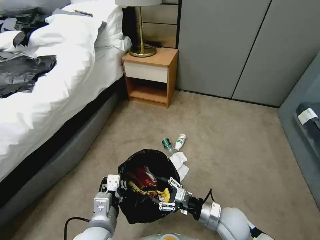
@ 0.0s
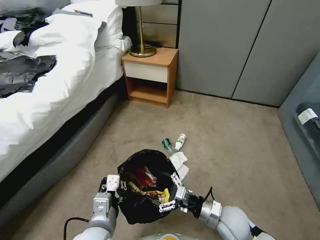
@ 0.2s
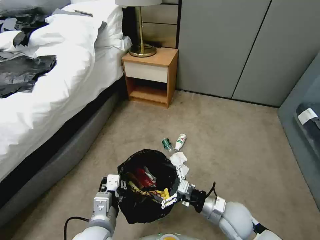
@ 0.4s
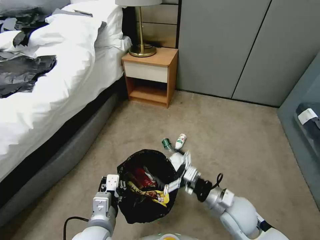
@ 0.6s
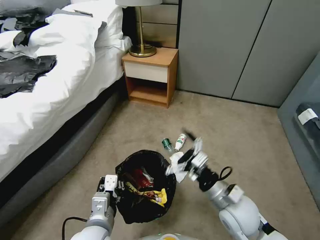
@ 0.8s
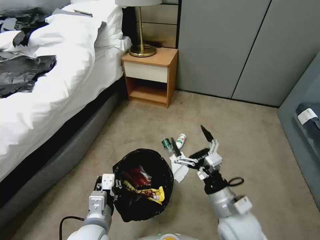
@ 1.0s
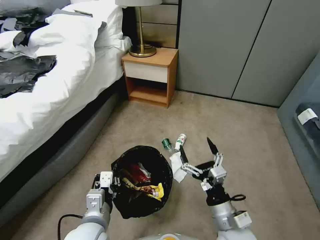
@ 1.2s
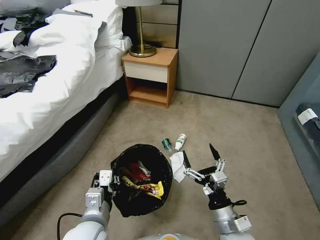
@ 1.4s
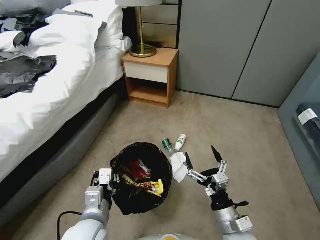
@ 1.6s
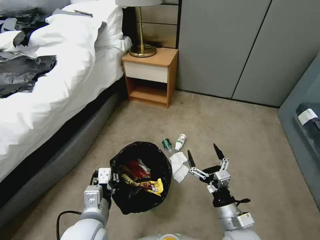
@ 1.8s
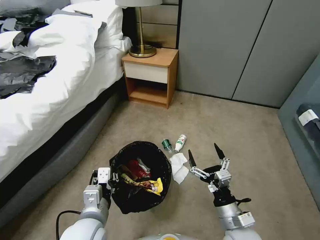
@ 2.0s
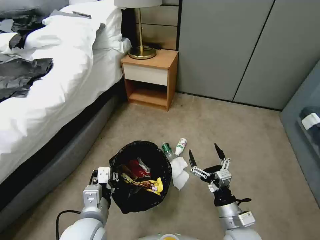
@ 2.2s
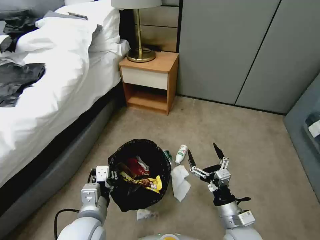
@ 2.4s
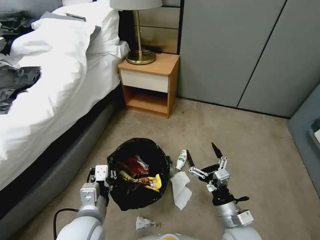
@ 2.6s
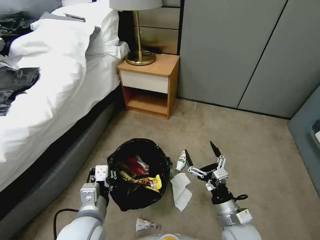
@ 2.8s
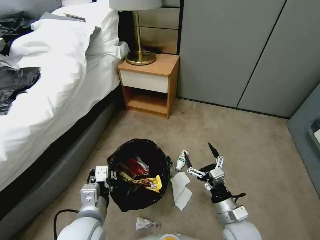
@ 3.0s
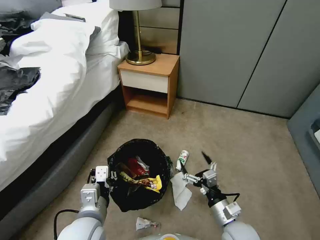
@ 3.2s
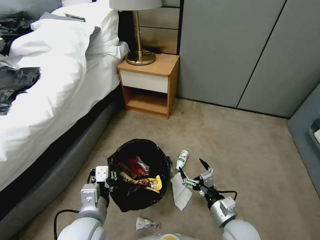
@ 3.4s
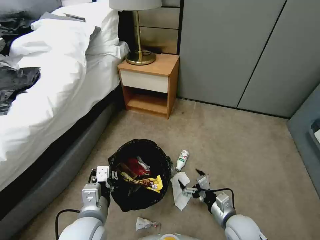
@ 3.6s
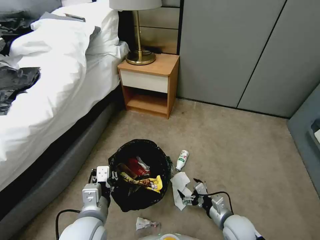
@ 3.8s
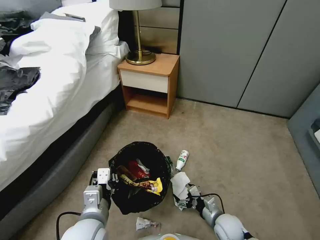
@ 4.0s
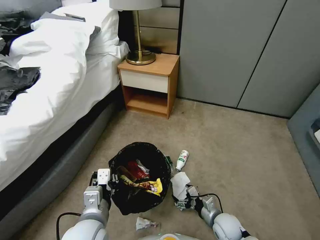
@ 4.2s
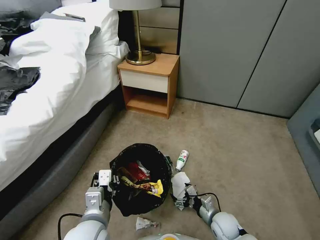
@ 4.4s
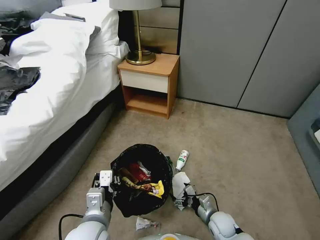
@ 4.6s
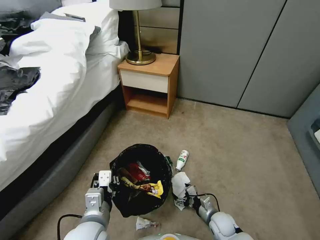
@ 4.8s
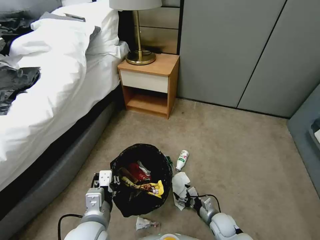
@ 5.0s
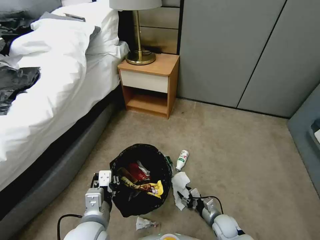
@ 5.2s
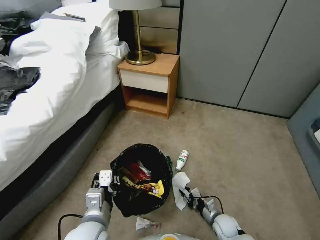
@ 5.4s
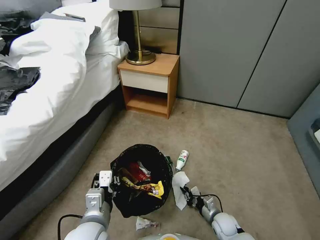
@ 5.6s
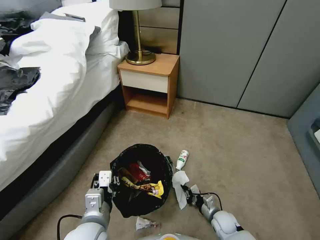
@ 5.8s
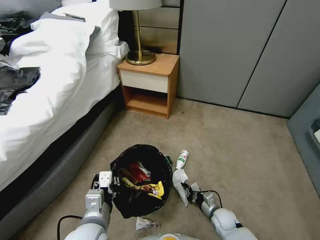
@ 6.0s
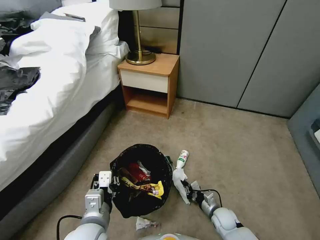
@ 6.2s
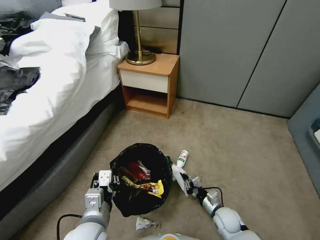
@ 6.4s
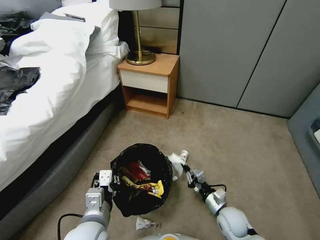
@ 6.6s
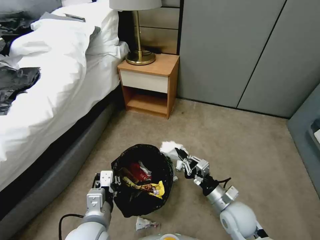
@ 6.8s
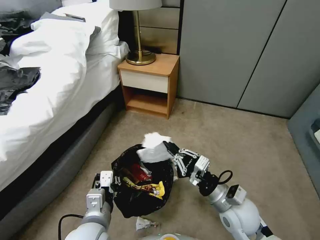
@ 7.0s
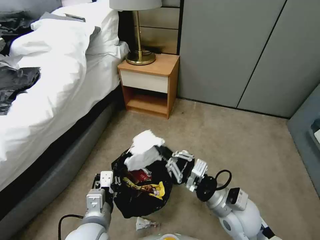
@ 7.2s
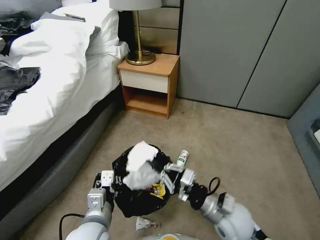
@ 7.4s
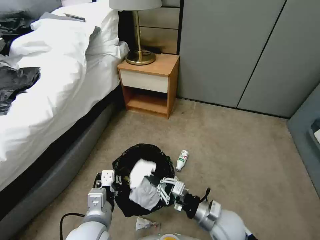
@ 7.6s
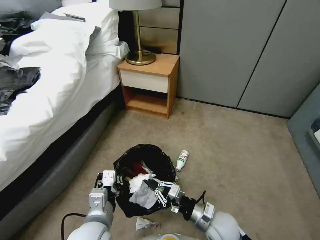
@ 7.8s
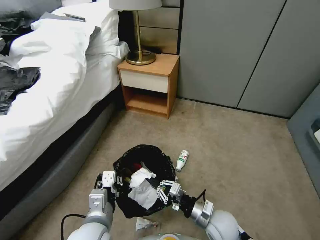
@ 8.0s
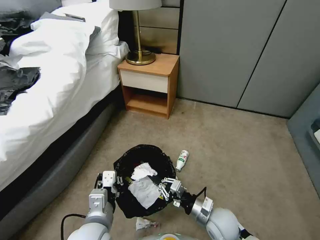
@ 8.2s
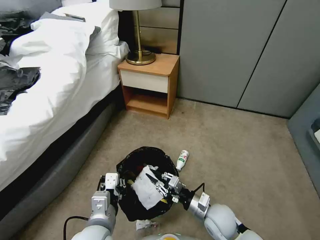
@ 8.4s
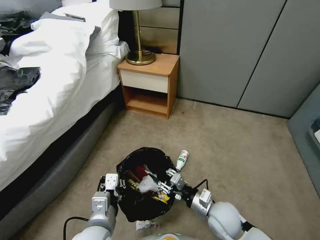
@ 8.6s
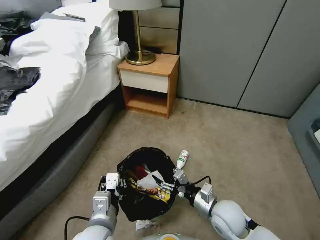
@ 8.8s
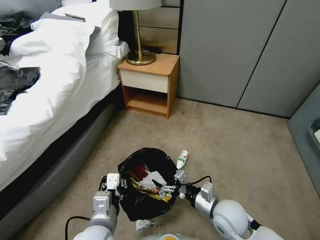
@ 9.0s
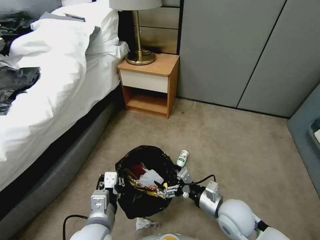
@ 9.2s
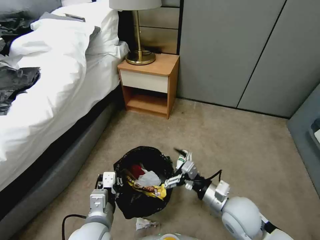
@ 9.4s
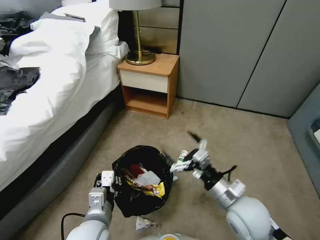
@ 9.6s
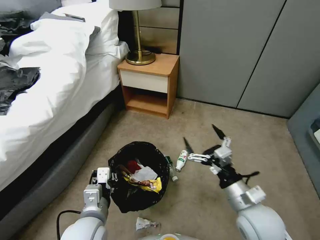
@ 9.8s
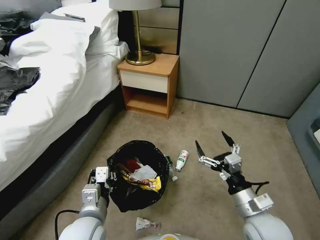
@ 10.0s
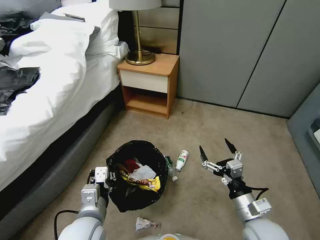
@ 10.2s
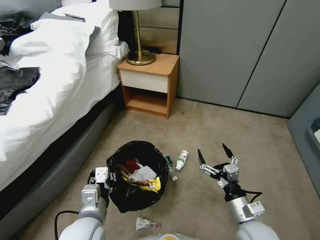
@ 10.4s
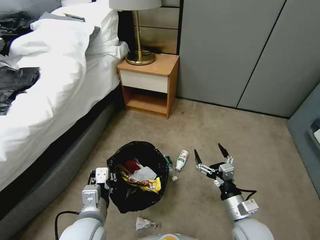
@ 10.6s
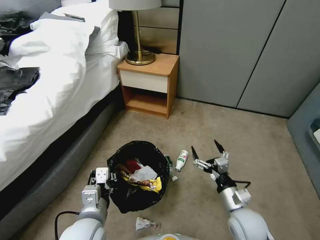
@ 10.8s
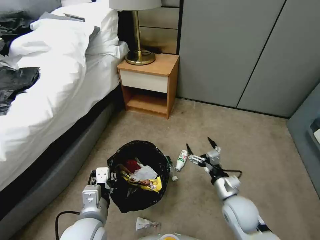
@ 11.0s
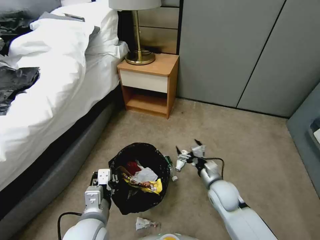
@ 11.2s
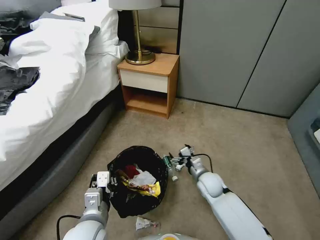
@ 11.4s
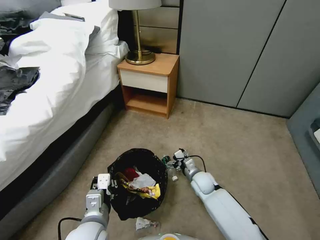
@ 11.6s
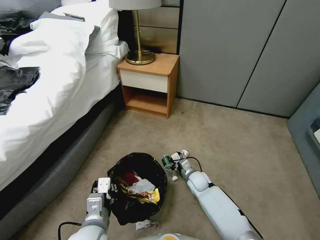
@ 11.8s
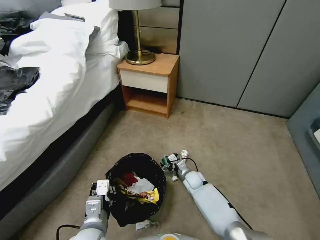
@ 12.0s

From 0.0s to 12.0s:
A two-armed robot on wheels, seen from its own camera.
Task of the whole recording: Pick up the trash bin, then pick up the garbage from the floor and place it into the trash bin.
From 0.0s to 1.6s: The right gripper shifts approximately 5 cm backward.
From 3.0s to 4.4s: The right gripper heads downward, covering approximately 15 cm.
From 4.4s to 6.0s: The right gripper travels downward by approximately 5 cm, and closes its fingers.
From 6.0s to 7.6s: The right gripper is displaced upward by approximately 20 cm.
From 7.6s to 9.0s: The right gripper opens.
From 9.0s to 10.4s: The right gripper travels to the right and backward by about 10 cm, and travels upward and back again, about 10 cm each way.
From 10.4s to 12.0s: The right gripper moves forward, downward and to the left, approximately 30 cm.

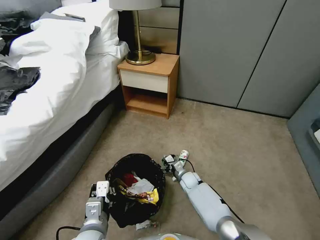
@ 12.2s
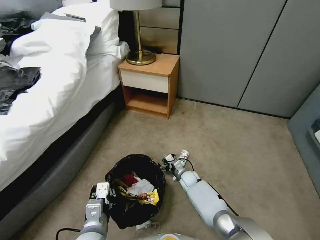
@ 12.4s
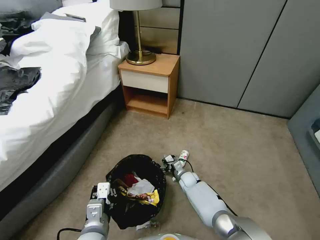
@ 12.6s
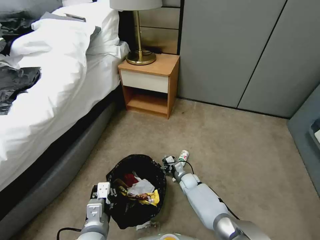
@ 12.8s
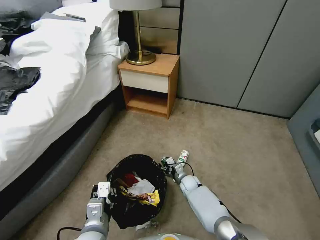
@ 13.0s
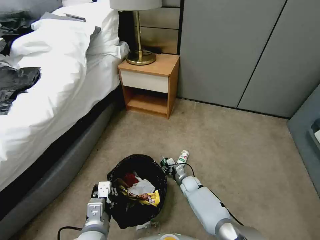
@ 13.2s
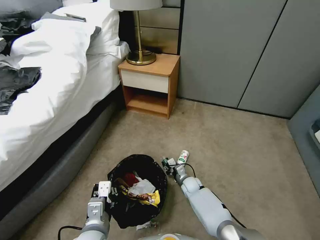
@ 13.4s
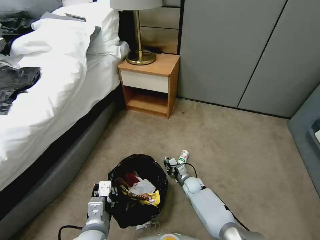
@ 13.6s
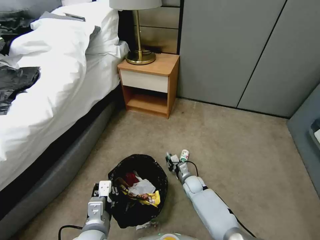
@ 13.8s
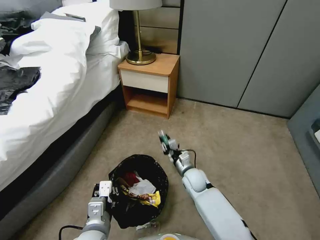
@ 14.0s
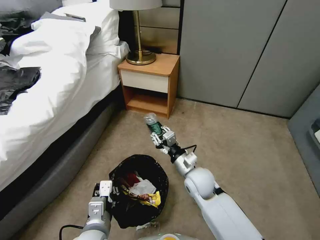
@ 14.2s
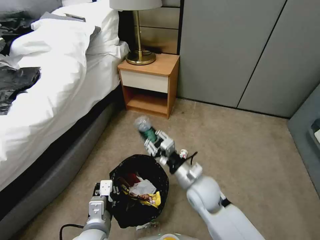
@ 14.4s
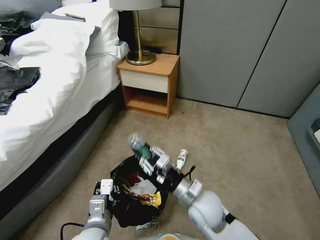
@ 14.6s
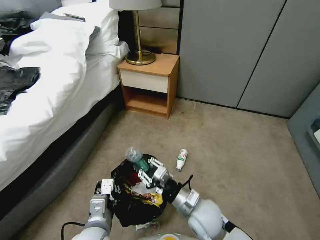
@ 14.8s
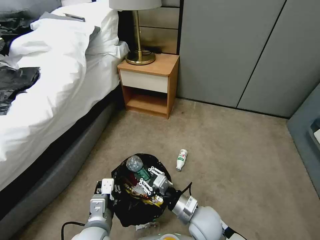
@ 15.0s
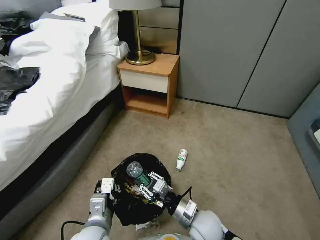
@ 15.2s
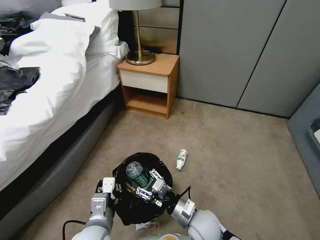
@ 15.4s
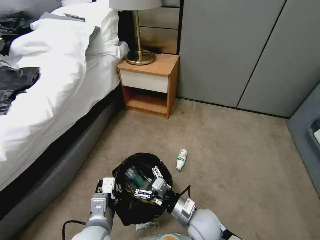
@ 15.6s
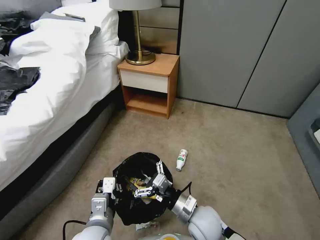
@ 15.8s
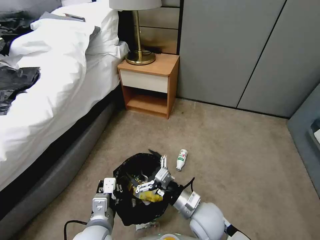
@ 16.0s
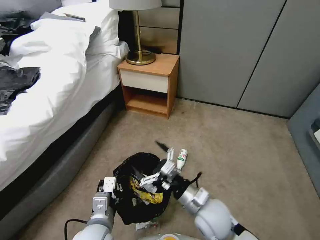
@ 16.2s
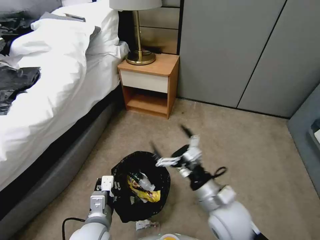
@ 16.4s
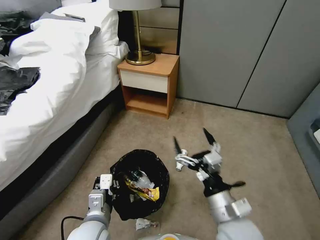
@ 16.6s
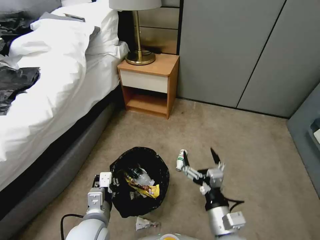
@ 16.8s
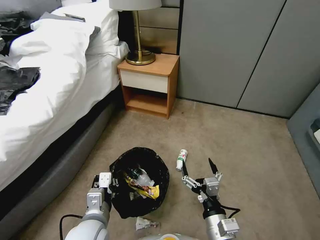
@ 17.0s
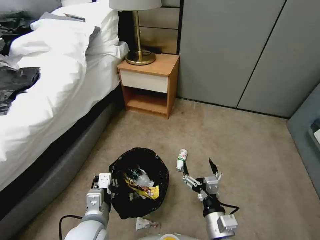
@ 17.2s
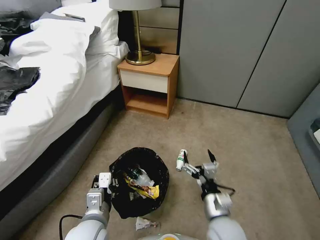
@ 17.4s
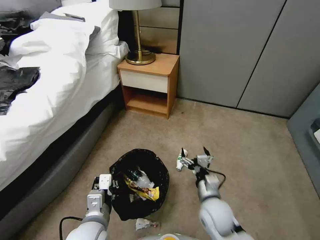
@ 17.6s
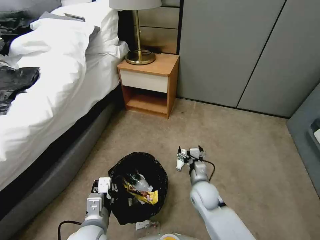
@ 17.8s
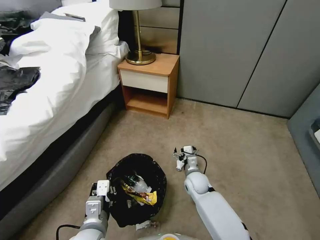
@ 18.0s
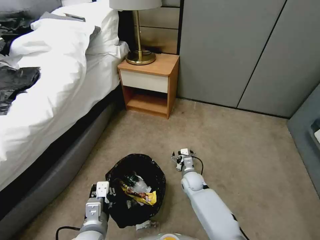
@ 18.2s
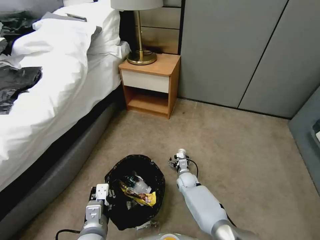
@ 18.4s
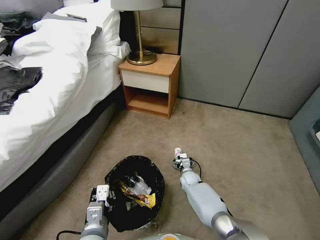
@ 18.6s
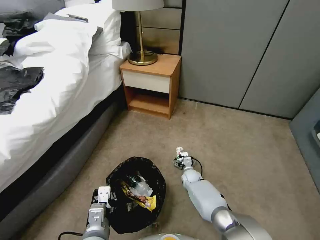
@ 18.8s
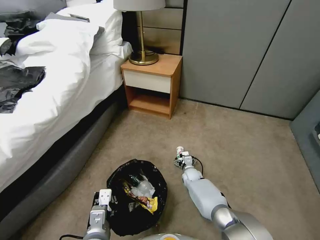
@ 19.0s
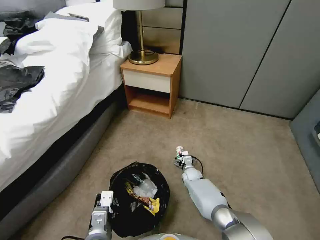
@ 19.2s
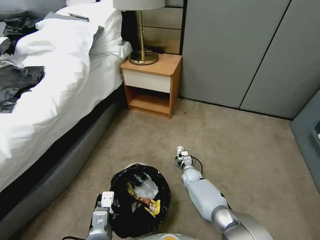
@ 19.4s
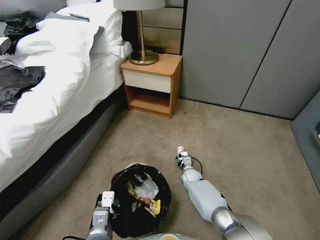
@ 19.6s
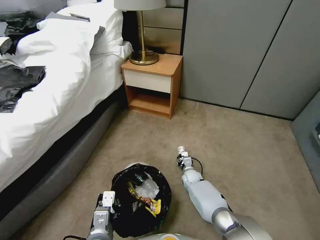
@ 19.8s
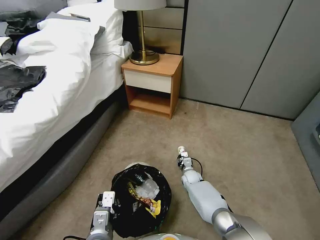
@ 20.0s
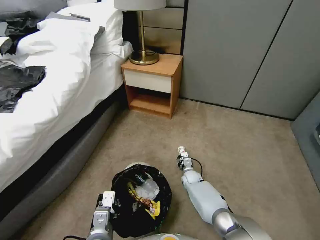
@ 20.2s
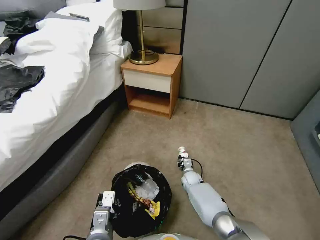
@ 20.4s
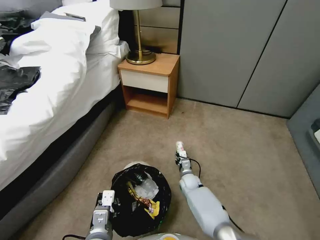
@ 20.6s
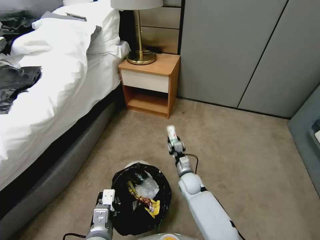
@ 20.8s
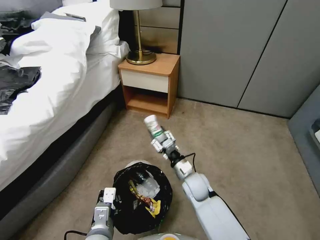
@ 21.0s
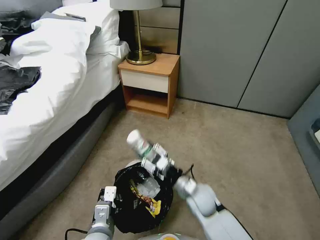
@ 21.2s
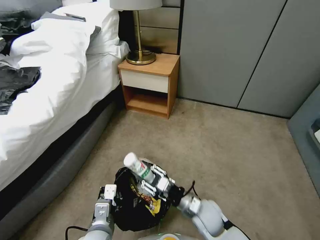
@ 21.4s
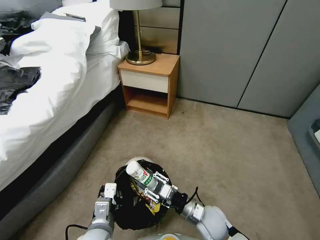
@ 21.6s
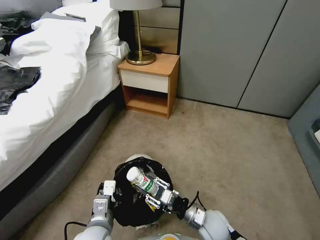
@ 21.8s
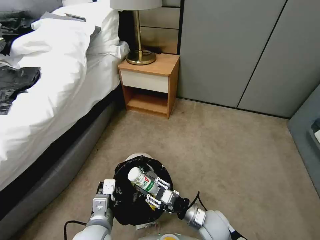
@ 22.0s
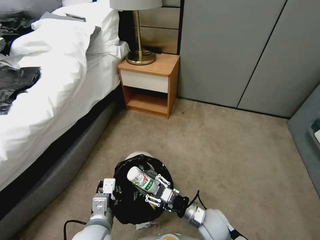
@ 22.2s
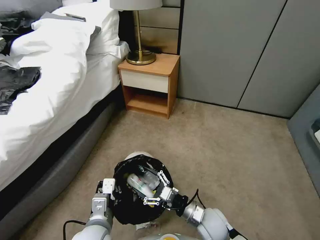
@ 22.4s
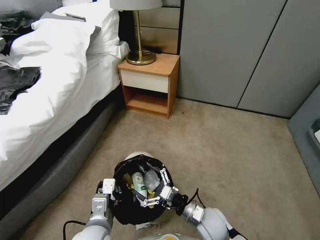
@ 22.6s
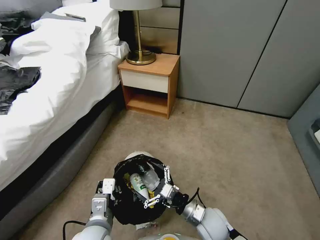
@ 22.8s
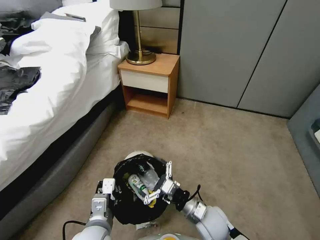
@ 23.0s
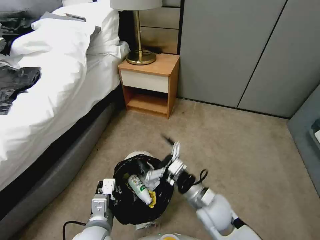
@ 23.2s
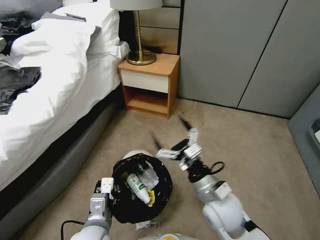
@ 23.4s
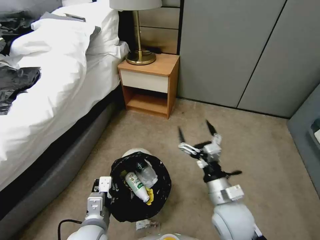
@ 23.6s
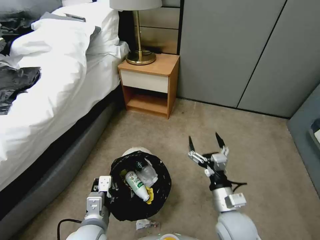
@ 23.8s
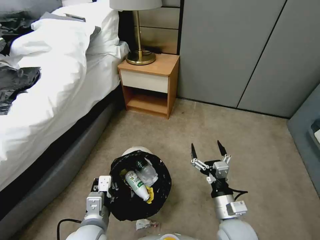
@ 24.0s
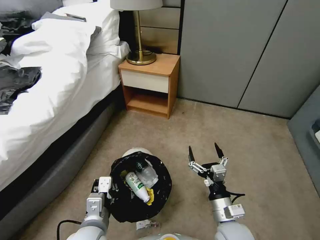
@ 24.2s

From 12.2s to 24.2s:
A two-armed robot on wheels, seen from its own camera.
Task of the whole recording: Pick up the trash bin, then pick up the garbage from the floor and place it into the trash bin.
From 12.2s to 13.8s: The right gripper closes its fingers.
From 13.8s to 15.2s: The right gripper moves backward and upward, about 25 cm.
From 15.2s to 16.6s: The right gripper goes roughly 10 cm upward, and opens.
From 16.6s to 18.2s: The right gripper shifts approximately 35 cm downward and forward.
From 18.2s to 19.8s: The right gripper moves downward, approximately 5 cm, and closes its fingers.
From 19.8s to 21.2s: The right gripper heads upward and backward, covering about 20 cm.
From 21.2s to 22.6s: The right gripper travels backward by about 5 cm, and opens its fingers.
From 22.6s to 24.2s: The right gripper shifts some 5 cm upward.
